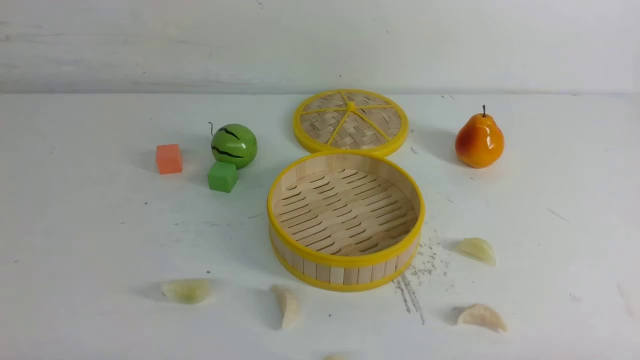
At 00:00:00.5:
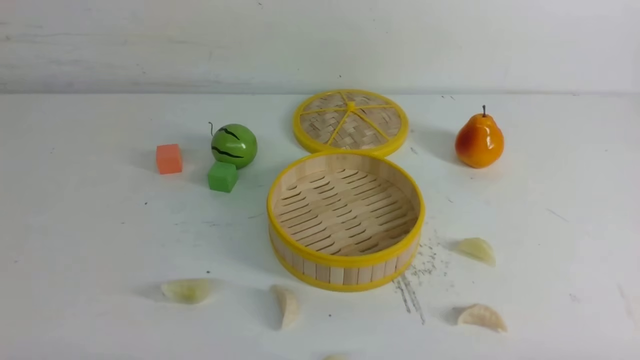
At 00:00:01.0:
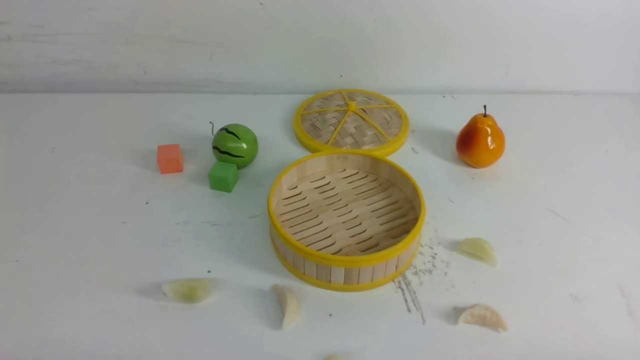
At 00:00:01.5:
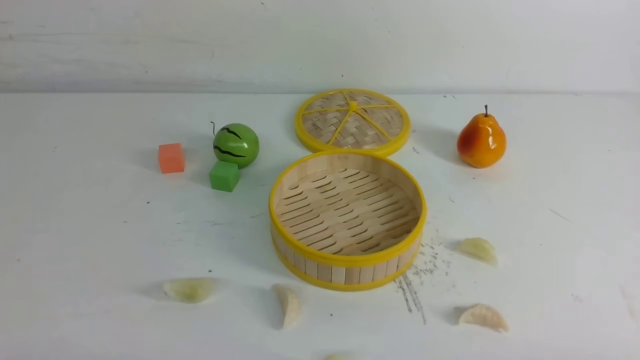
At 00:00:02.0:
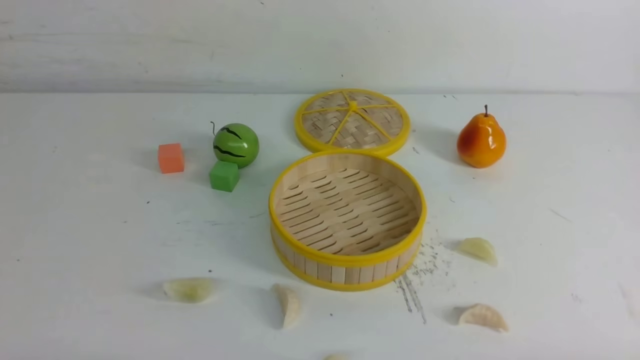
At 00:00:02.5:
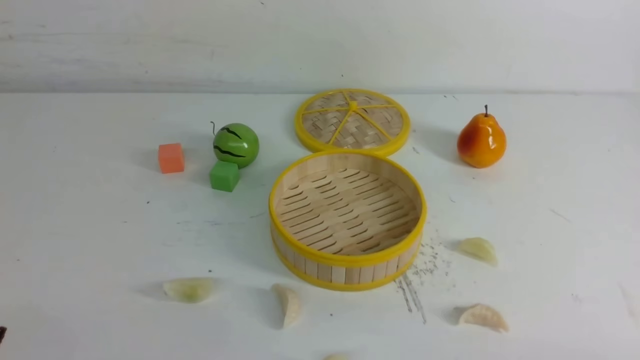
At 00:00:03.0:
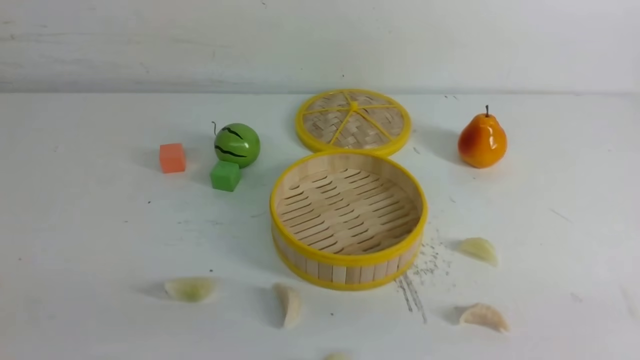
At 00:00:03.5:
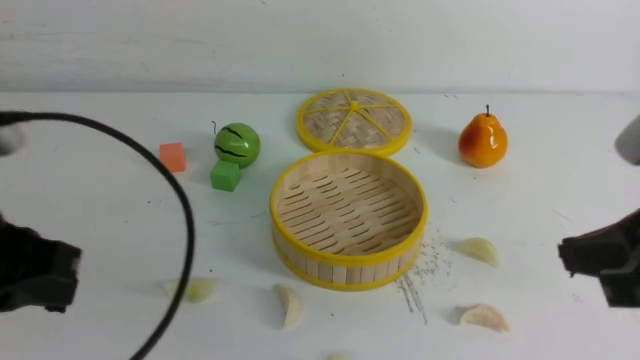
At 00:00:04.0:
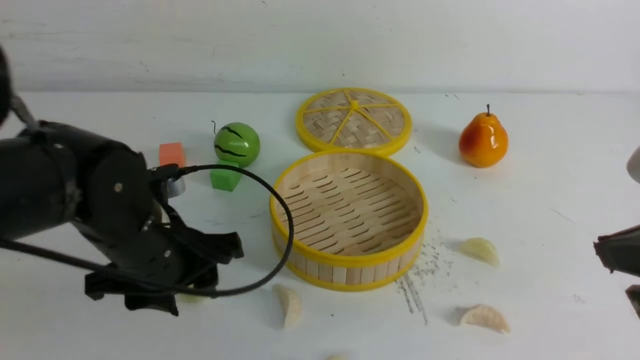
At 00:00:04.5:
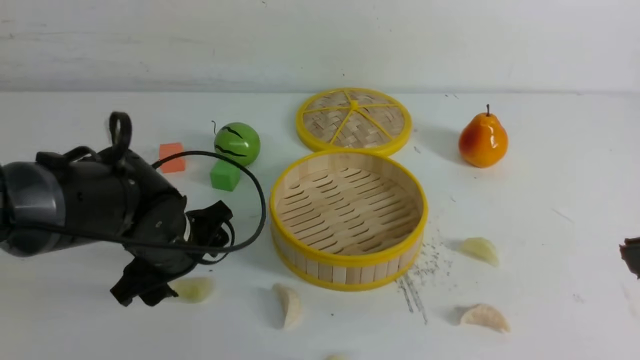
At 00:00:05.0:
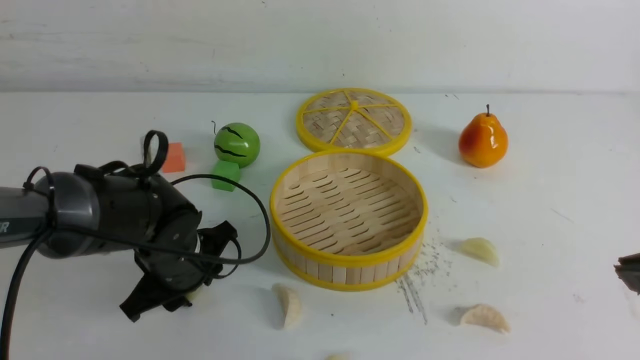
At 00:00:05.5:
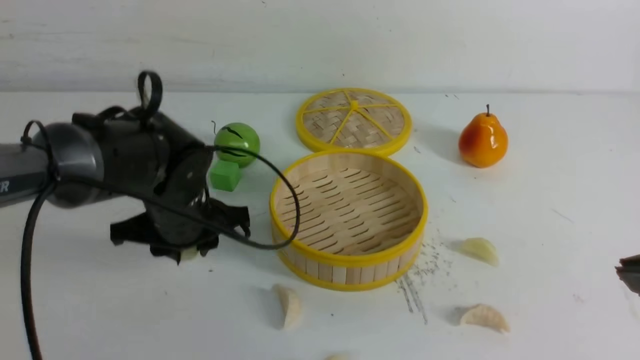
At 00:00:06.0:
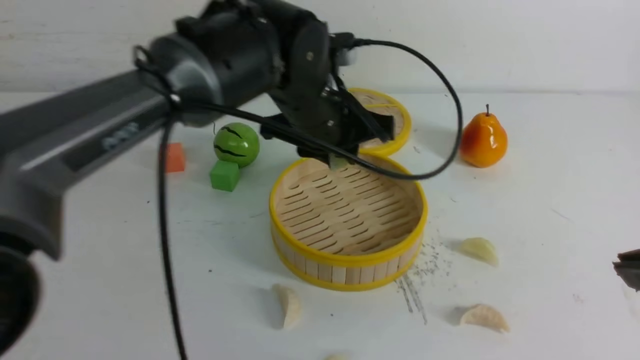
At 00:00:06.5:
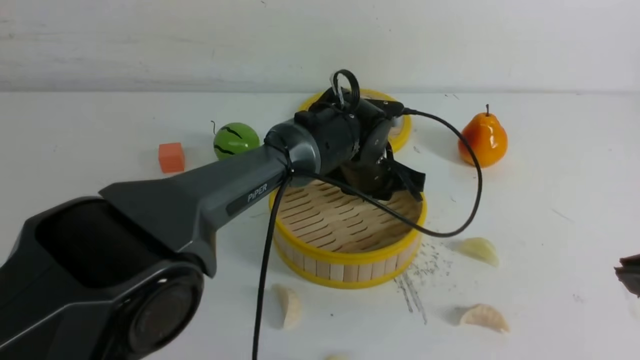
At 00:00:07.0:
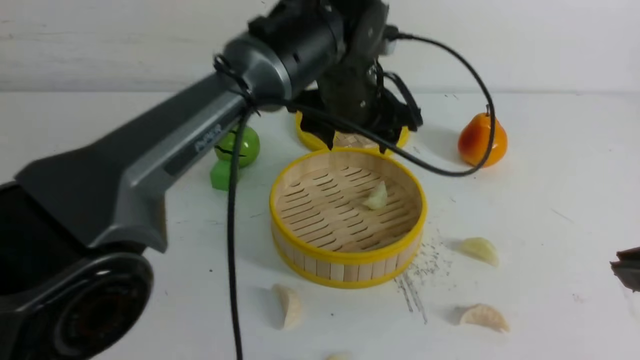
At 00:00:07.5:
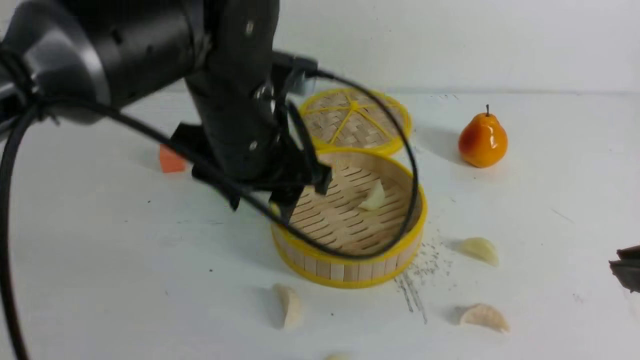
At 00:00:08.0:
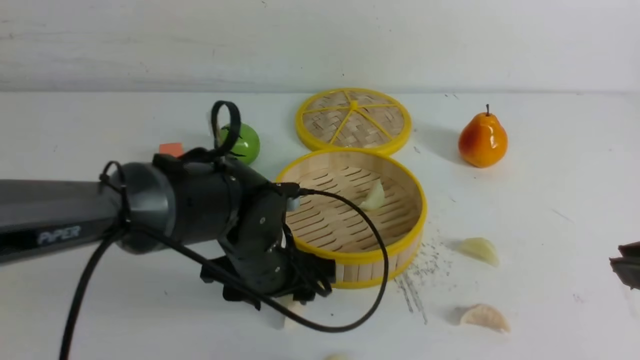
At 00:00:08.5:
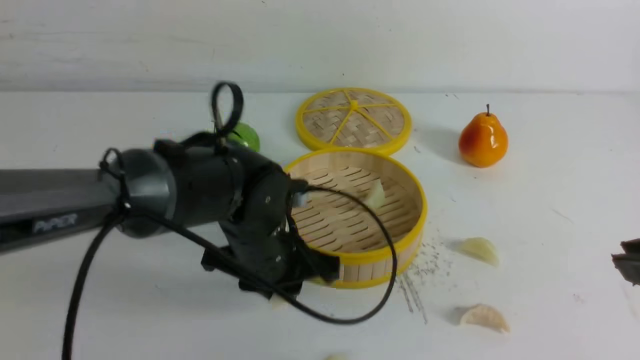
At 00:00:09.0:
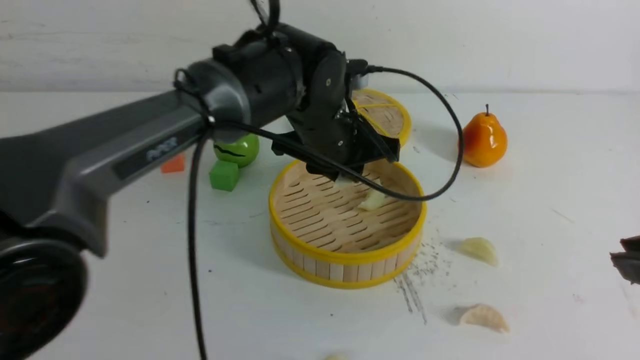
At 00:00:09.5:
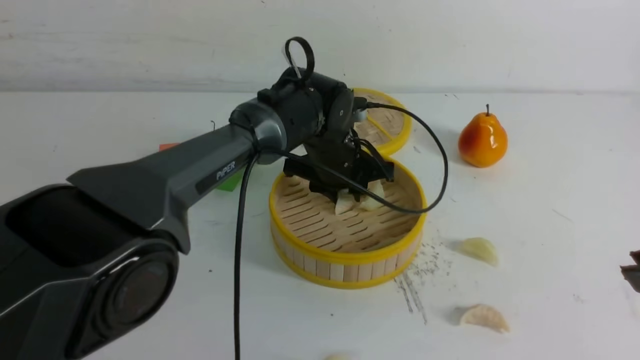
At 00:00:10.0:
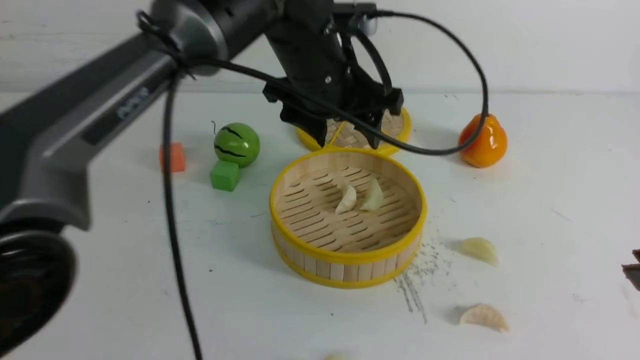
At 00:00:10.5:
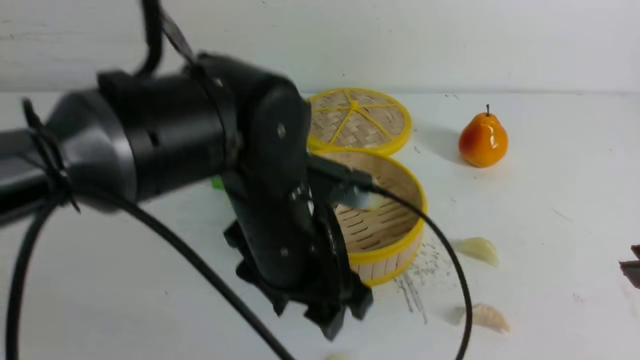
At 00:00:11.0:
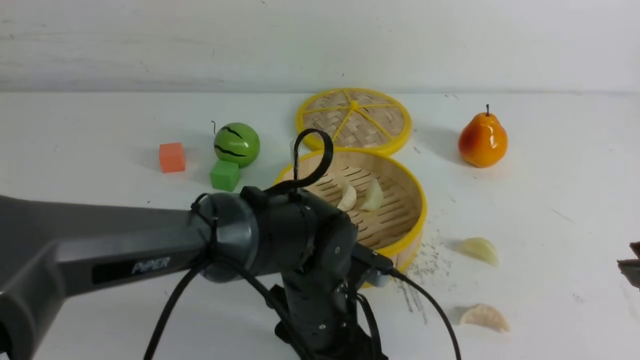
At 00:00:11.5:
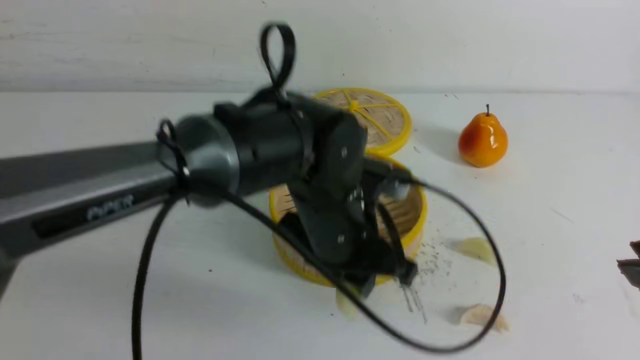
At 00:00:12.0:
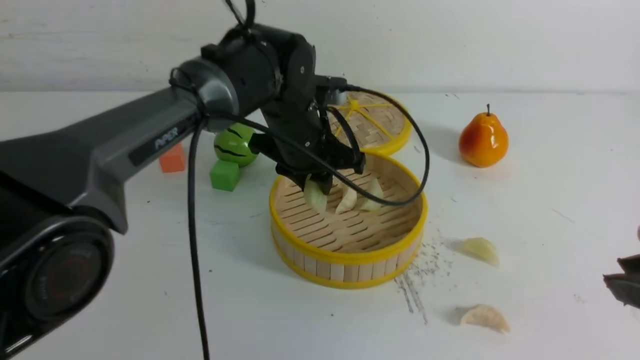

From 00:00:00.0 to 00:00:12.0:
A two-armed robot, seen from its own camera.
Task of the whole recording: put the dumplings into the steamer on the white table.
Step, from 00:00:00.0 to 00:00:05.0: use the left arm to grab a dumpling.
Step, from 00:00:05.5 to 00:00:06.5: use the left arm to put the dumpling into the steamer.
Step, from 00:00:07.0 to 00:00:08.0: use the left arm to grab a dumpling.
Step, from 00:00:09.0 to 00:00:10.0: use the left arm to put the dumpling into the steamer.
Step, from 00:00:10.5 to 00:00:11.0: use the left arm to grab a dumpling.
From 00:00:02.0 to 00:00:04.0: The right gripper is displaced upward and forward by some 20 cm, and closes up. The left gripper moves forward and to the right, some 25 cm, and closes and opens again.
From 00:00:04.0 to 00:00:06.0: The left gripper heads to the right and forward, covering about 20 cm.
From 00:00:06.0 to 00:00:08.0: The left gripper swings up and down, some 15 cm each way, with 2 reversals, and opens up.
From 00:00:08.0 to 00:00:10.0: The left gripper swings up and down, roughly 15 cm each way, with 2 reversals, and closes, then opens again.
From 00:00:10.0 to 00:00:12.0: The left gripper moves downward, roughly 10 cm, and closes.

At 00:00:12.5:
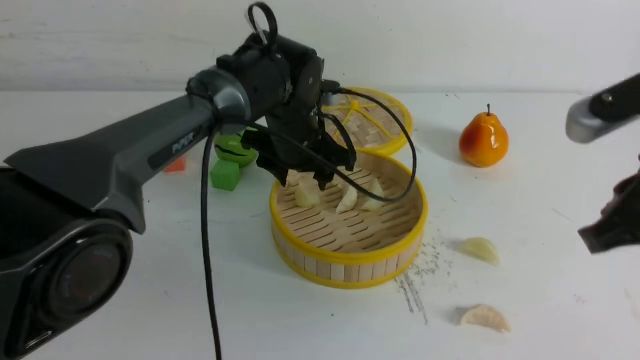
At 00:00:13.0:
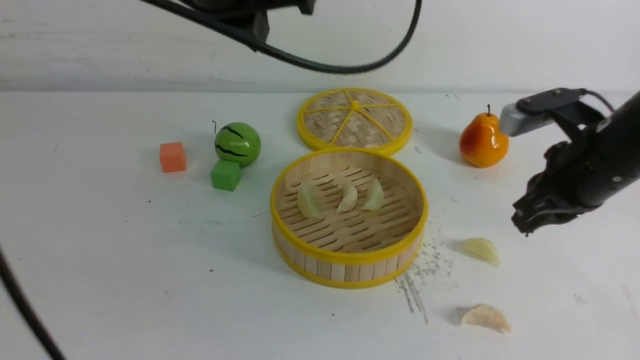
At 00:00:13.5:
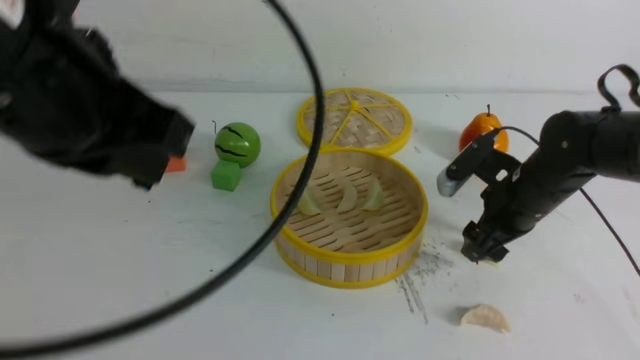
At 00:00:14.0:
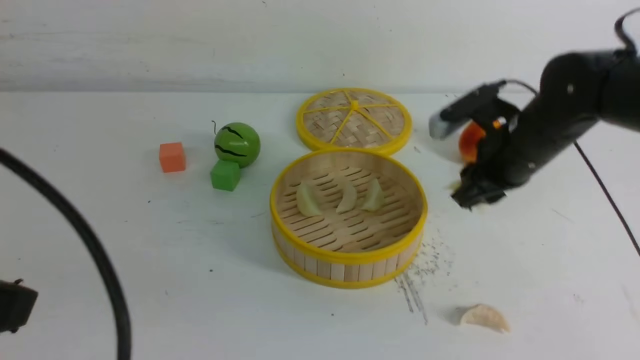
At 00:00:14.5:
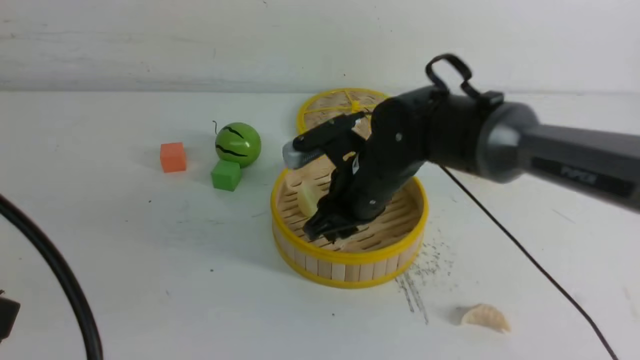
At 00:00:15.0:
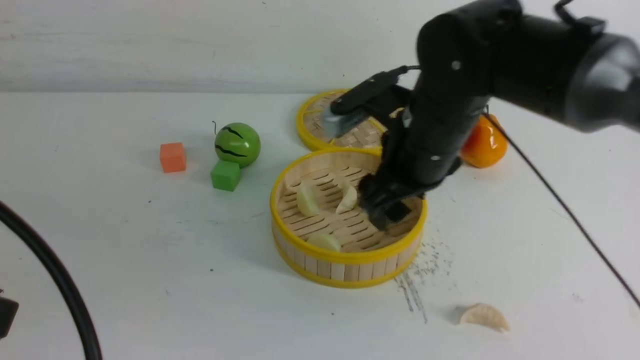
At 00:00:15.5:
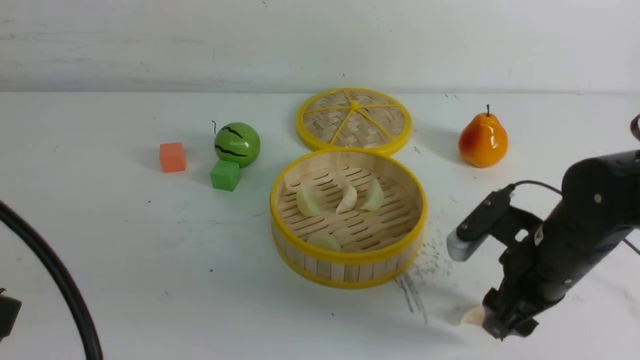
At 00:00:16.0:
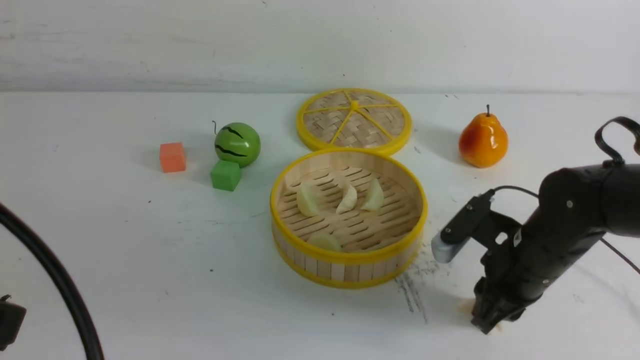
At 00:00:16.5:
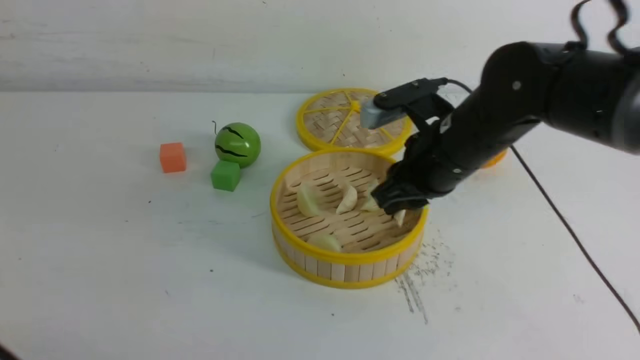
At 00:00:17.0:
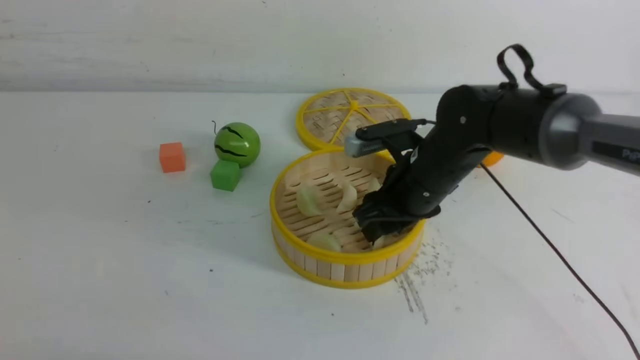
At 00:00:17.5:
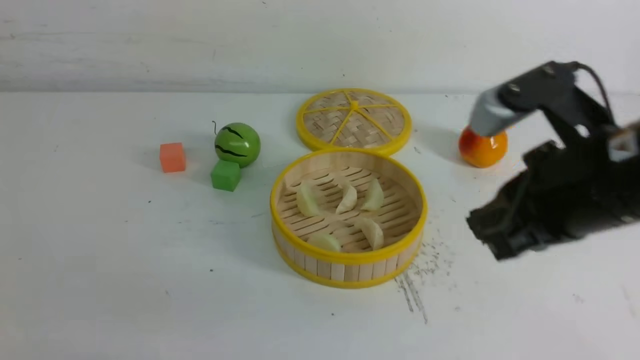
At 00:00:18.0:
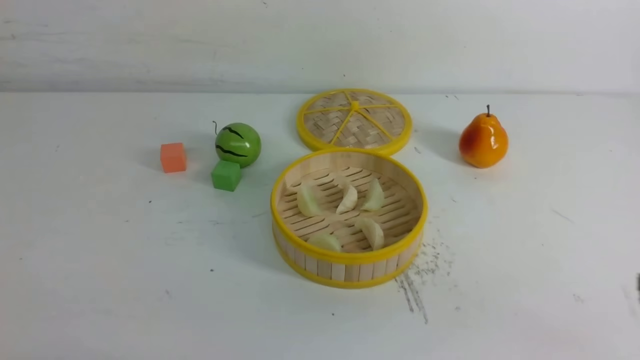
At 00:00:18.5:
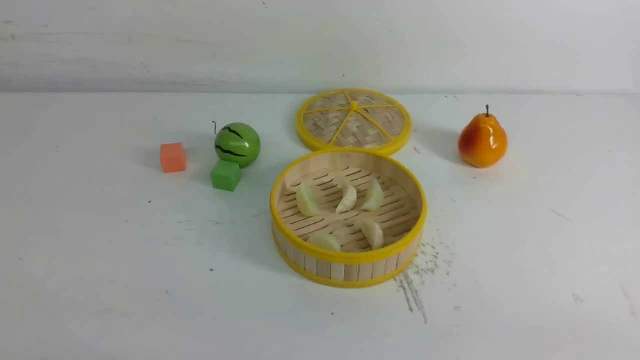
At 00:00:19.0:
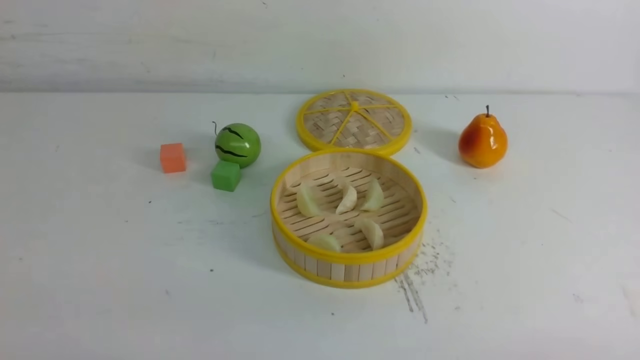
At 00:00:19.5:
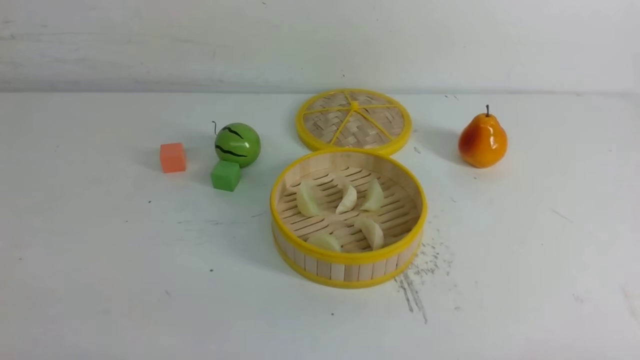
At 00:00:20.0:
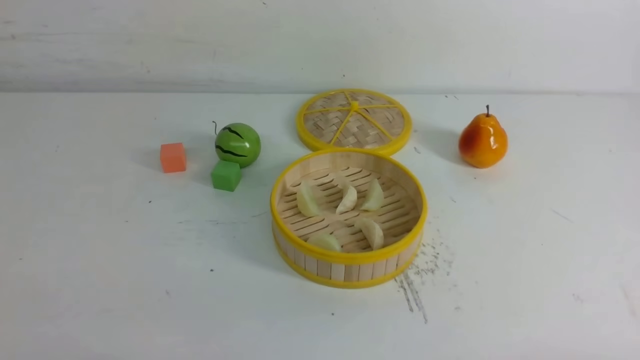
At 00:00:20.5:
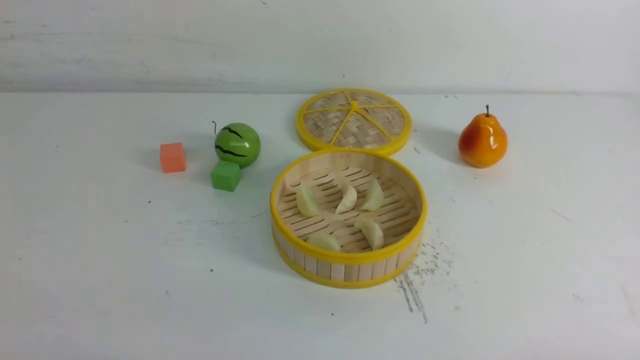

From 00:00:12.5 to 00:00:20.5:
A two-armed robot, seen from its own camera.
Task of the whole recording: put the dumplings into the steamer on the white table.
Step, from 00:00:13.0 to 00:00:13.5: use the right arm to grab a dumpling.
Step, from 00:00:14.0 to 00:00:14.5: use the right arm to put the dumpling into the steamer.
Step, from 00:00:15.0 to 00:00:16.0: use the right arm to grab a dumpling.
Step, from 00:00:16.5 to 00:00:17.0: use the right arm to put the dumpling into the steamer.
From 00:00:12.5 to 00:00:14.5: The left gripper goes about 40 cm backward and to the left, and closes, while the right gripper goes roughly 25 cm to the left, forward and downward, and opens up.
From 00:00:14.5 to 00:00:16.5: The left gripper goes approximately 10 cm downward. The right gripper heads to the right, covering approximately 5 cm, and opens, then closes again.
From 00:00:16.5 to 00:00:18.5: The right gripper goes some 35 cm backward and to the right, and closes.
